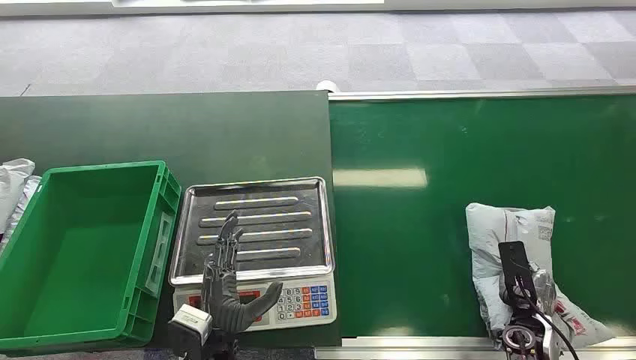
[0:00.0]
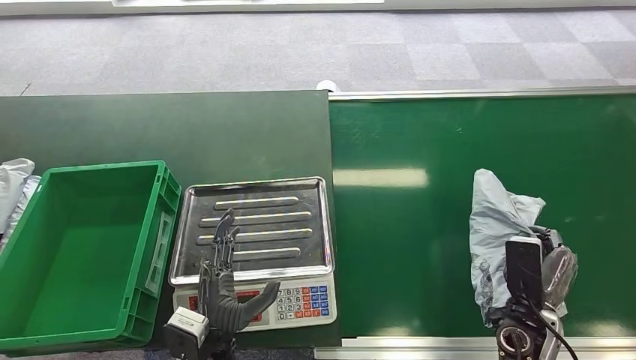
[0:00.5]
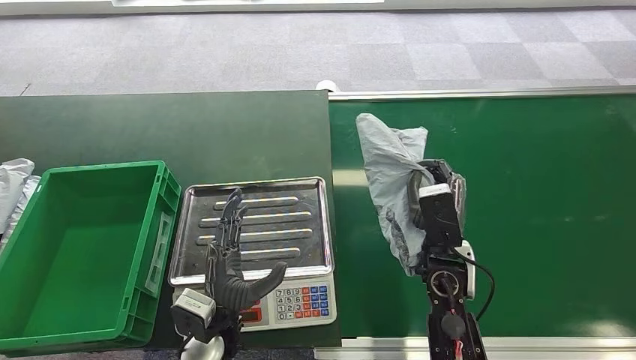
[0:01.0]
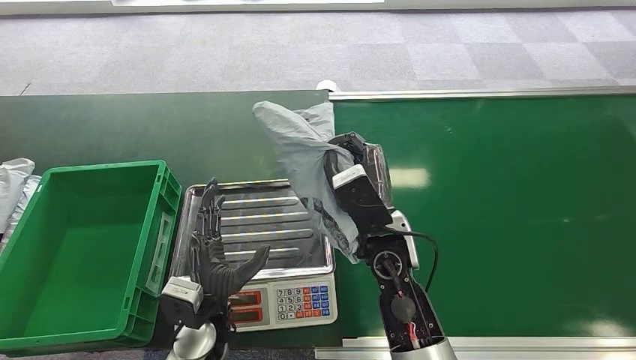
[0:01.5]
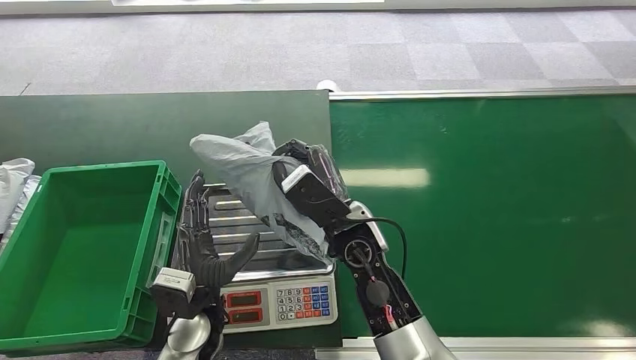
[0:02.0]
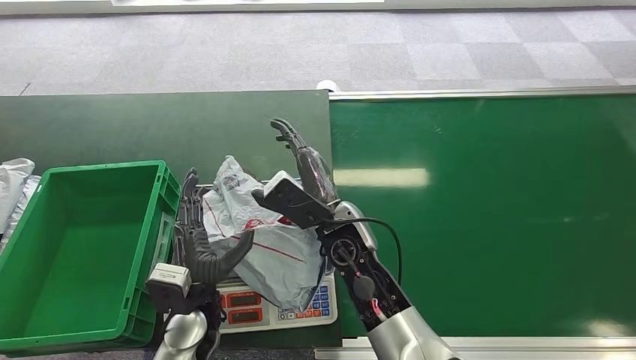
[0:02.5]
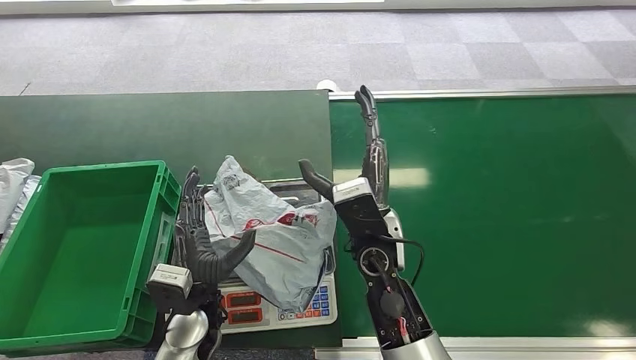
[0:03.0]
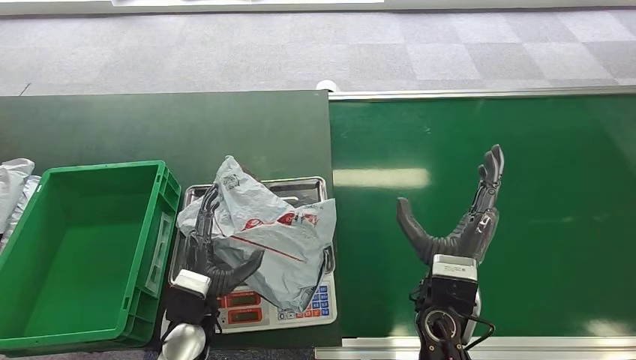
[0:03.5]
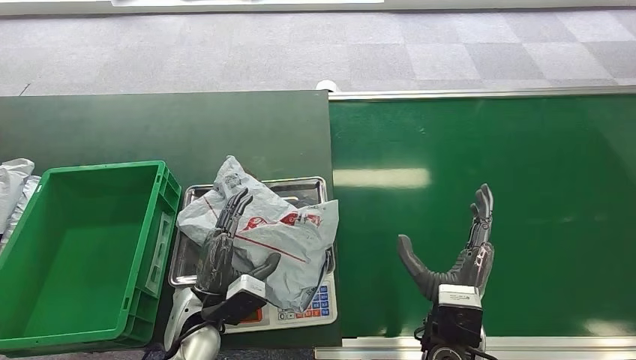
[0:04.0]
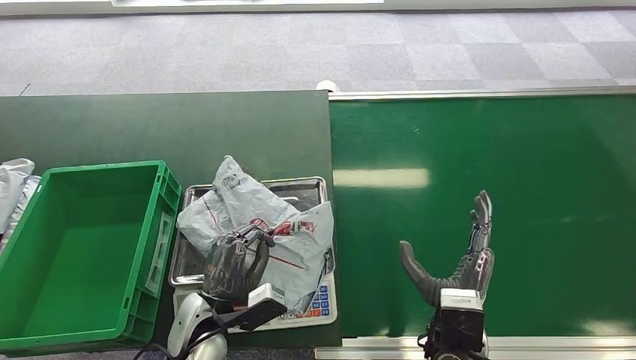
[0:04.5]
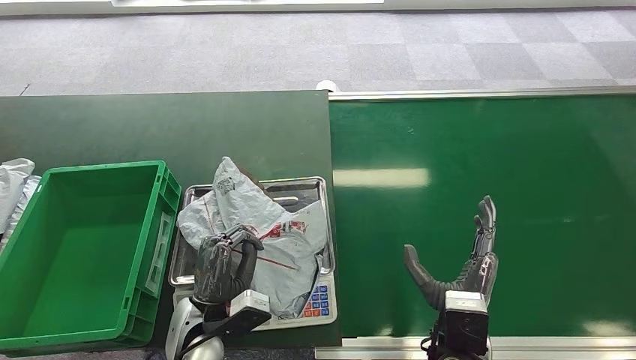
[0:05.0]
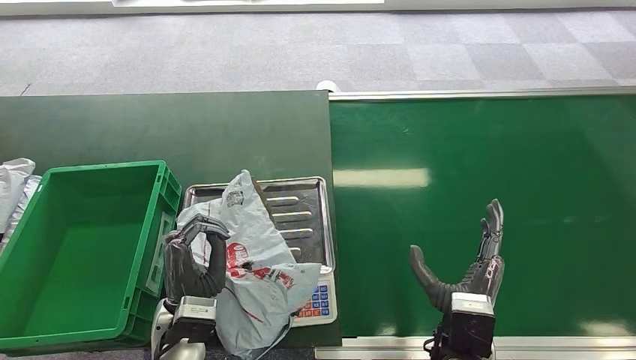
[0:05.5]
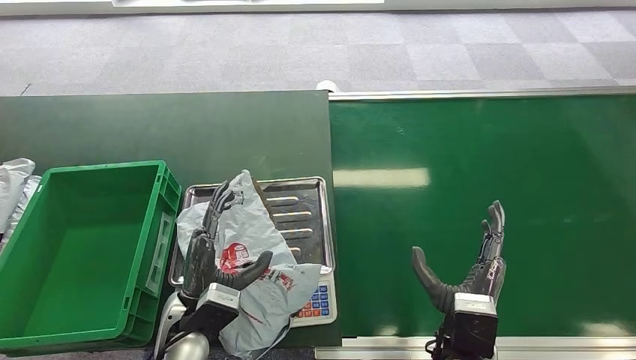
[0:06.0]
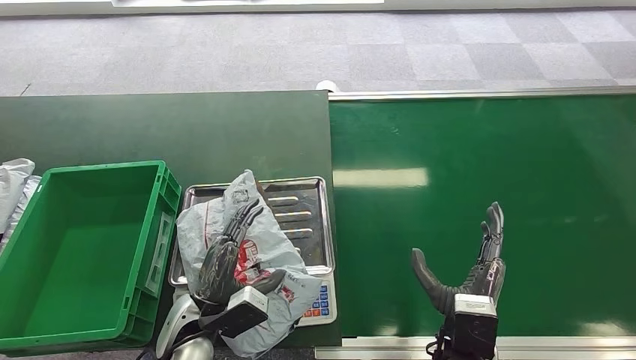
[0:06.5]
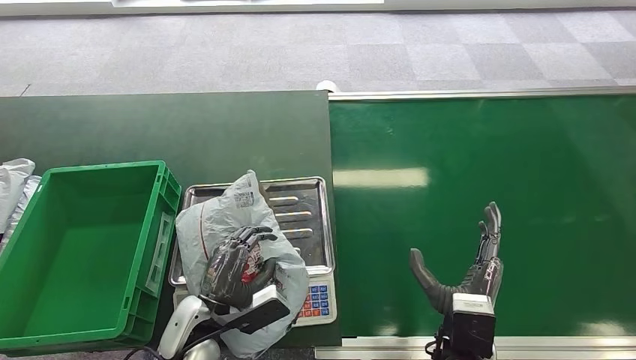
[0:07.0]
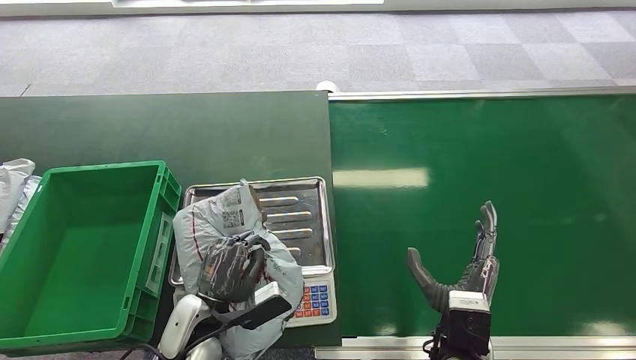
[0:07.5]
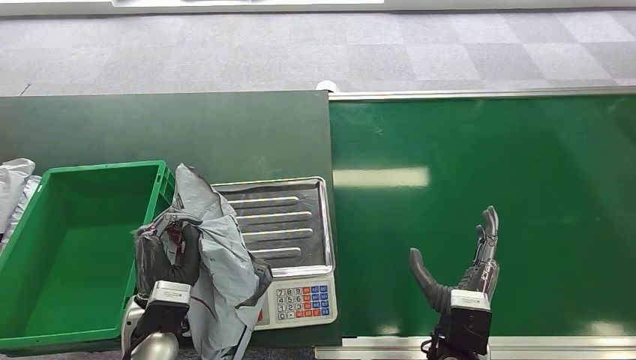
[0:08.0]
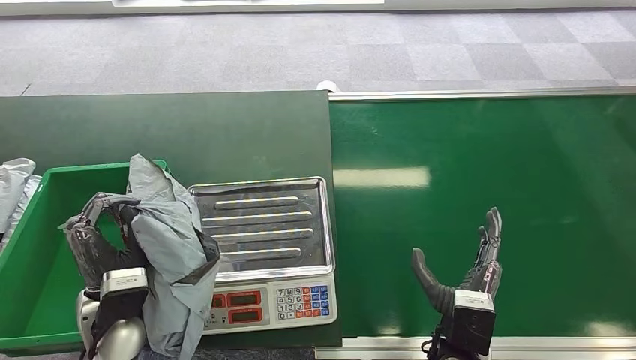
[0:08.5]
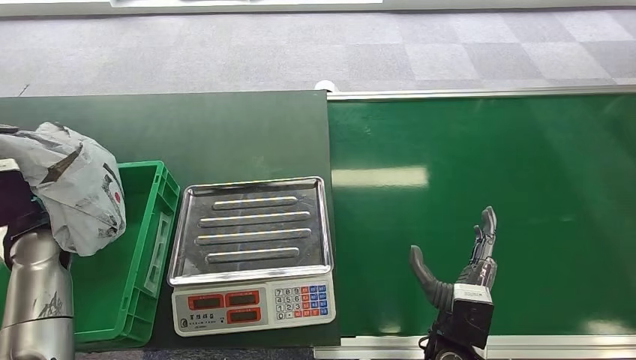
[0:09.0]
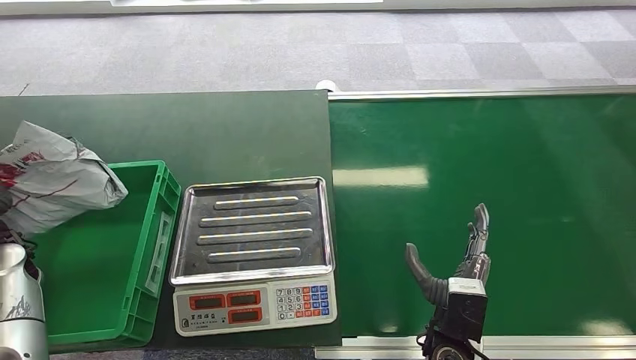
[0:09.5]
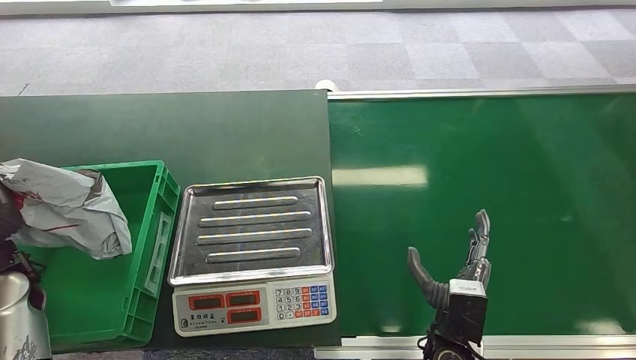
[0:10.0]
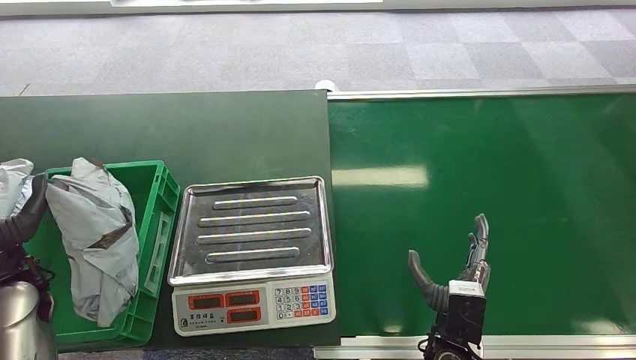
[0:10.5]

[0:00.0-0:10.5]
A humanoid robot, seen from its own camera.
Step, 0:00.0 to 0:00.5: Pick up the package from the conveyor belt.
Step, 0:02.0 to 0:03.0: Place the package onto the inbound machine.
Step, 0:08.0 to 0:08.5: Pick up the package from the inbound machine.
0:02.0 to 0:04.0: The right hand travels backward, to the right and downward by roughly 20 cm.
0:06.5 to 0:08.5: The left hand moves to the left and upward, approximately 10 cm.
0:08.5 to 0:10.5: The left hand travels to the left by some 15 cm.

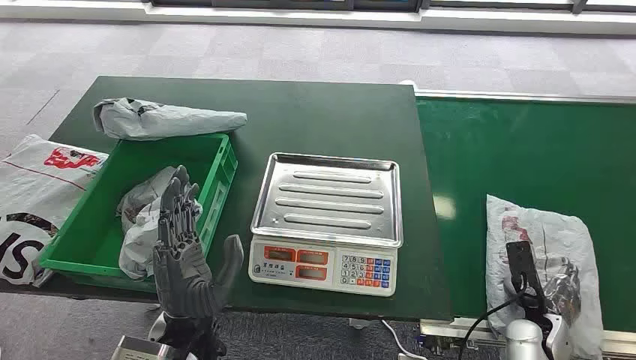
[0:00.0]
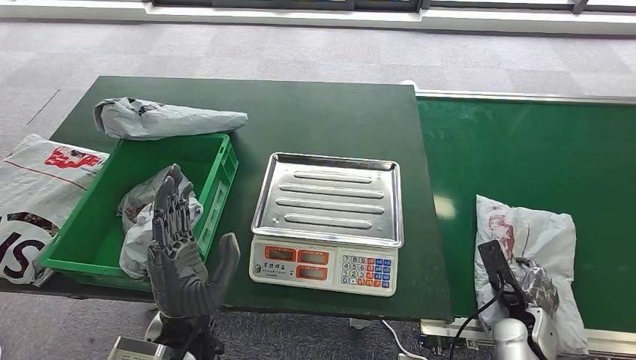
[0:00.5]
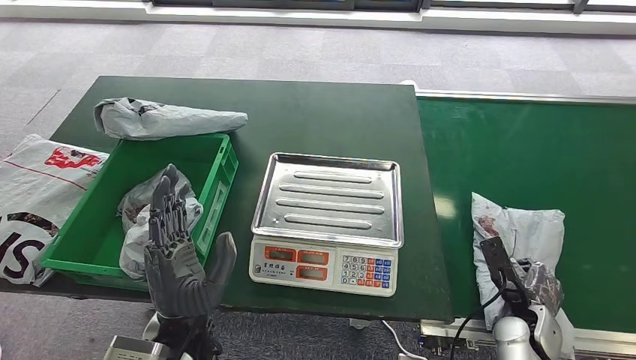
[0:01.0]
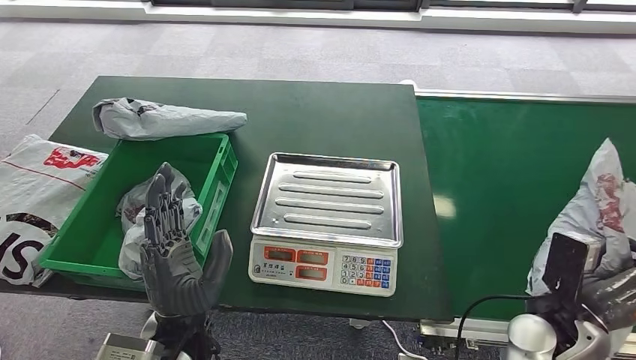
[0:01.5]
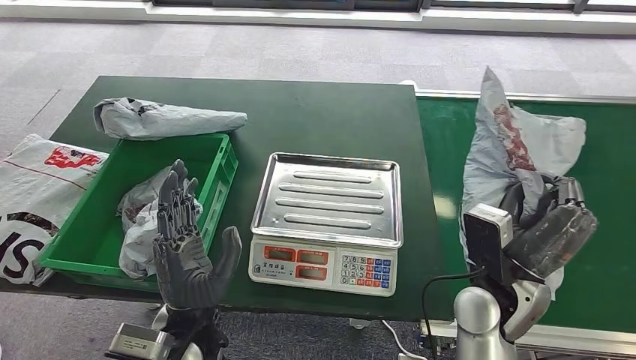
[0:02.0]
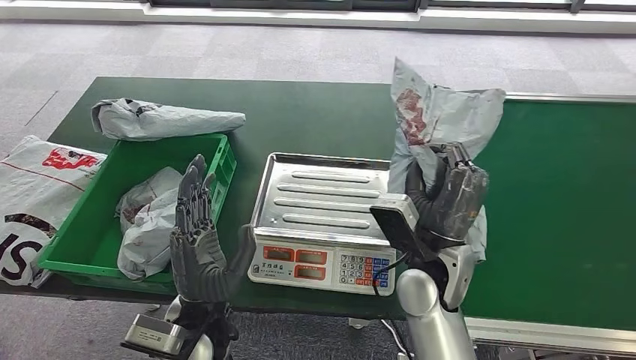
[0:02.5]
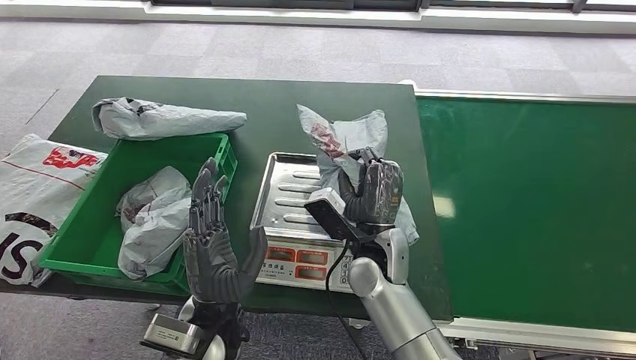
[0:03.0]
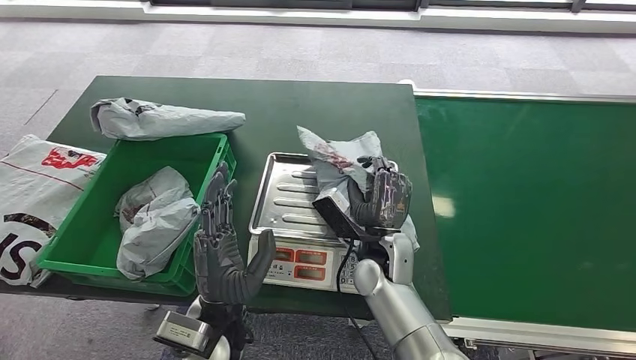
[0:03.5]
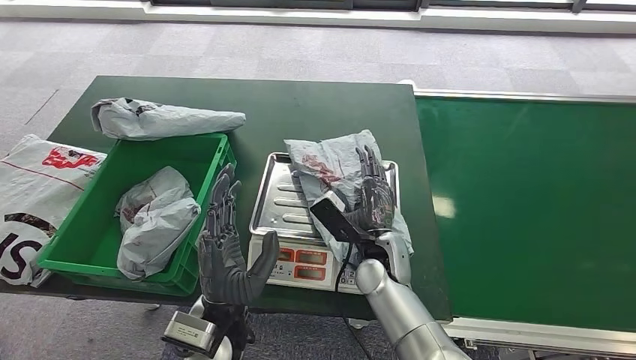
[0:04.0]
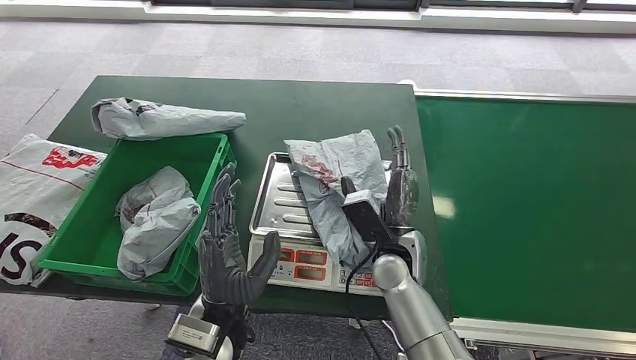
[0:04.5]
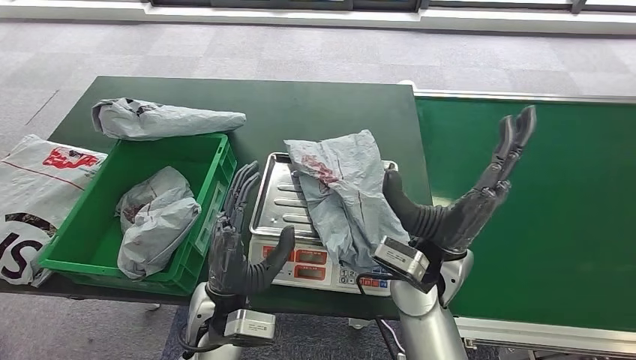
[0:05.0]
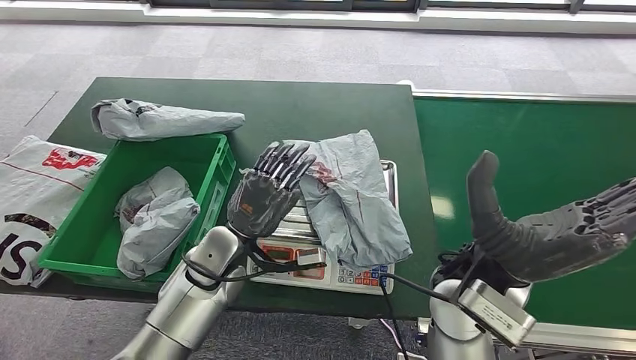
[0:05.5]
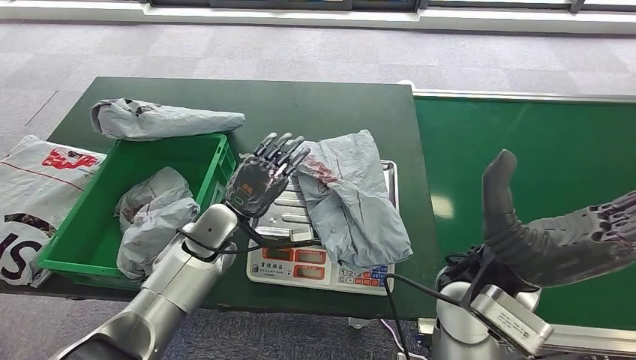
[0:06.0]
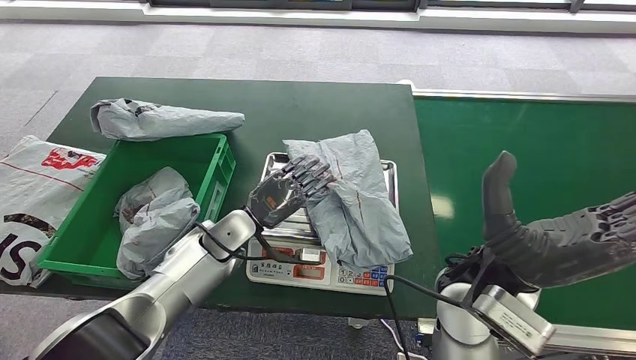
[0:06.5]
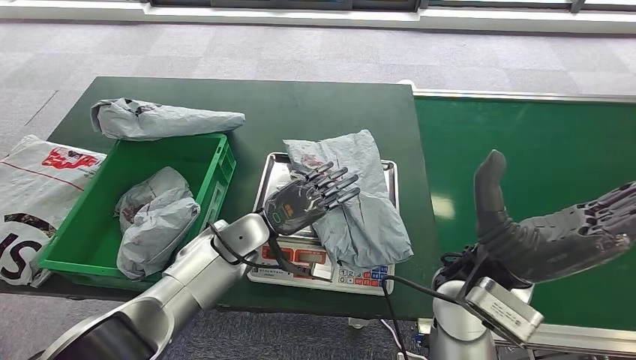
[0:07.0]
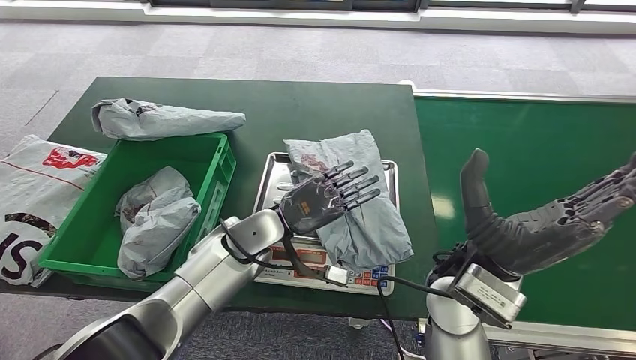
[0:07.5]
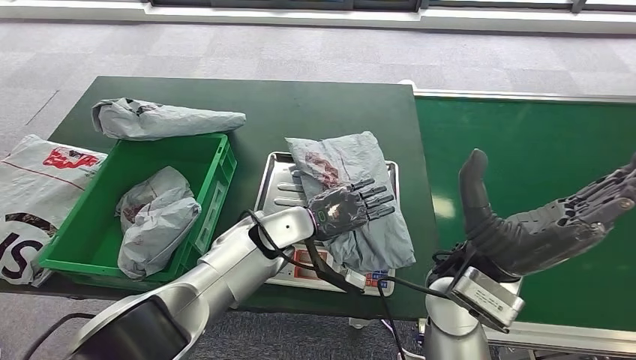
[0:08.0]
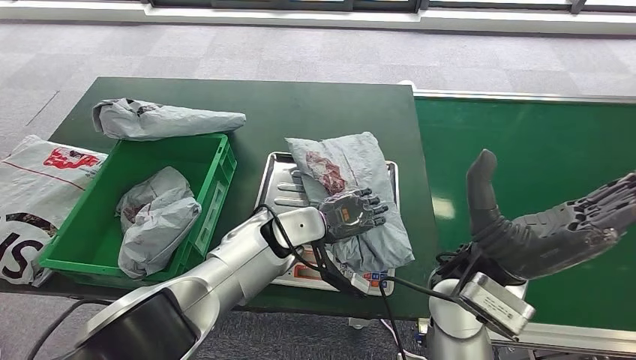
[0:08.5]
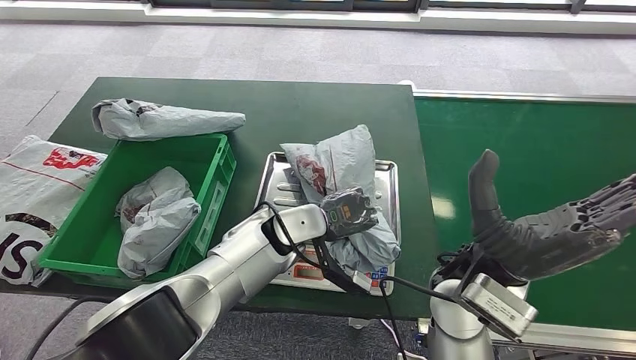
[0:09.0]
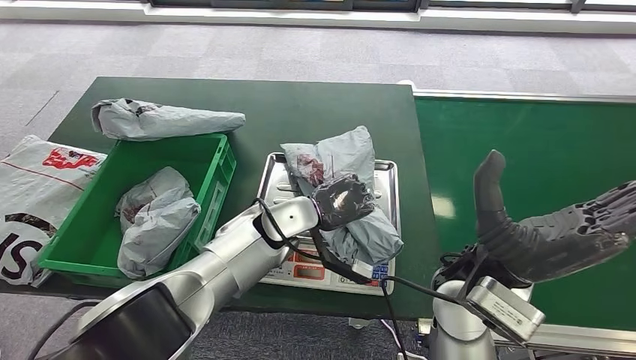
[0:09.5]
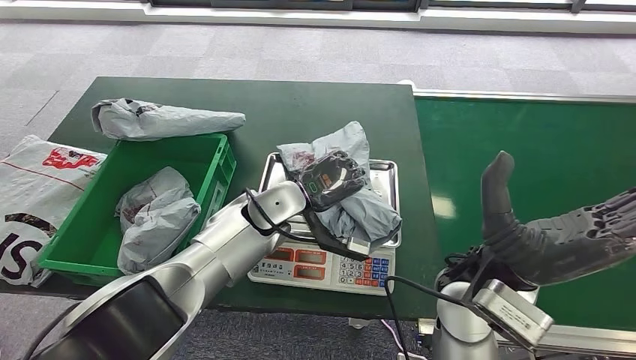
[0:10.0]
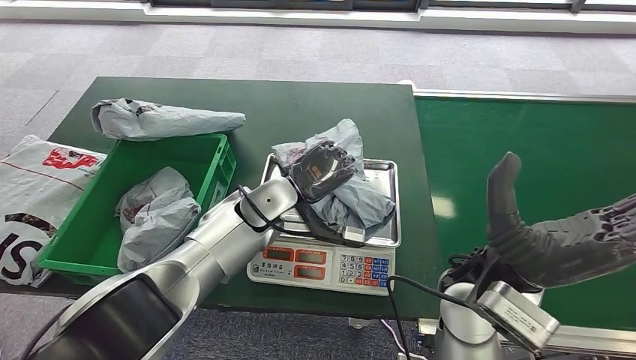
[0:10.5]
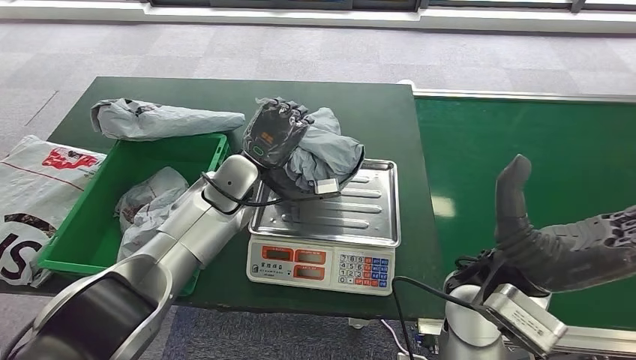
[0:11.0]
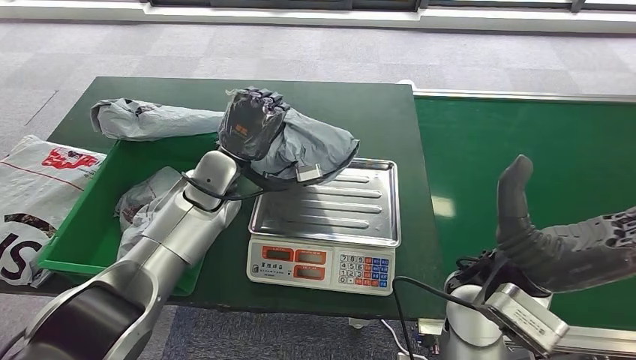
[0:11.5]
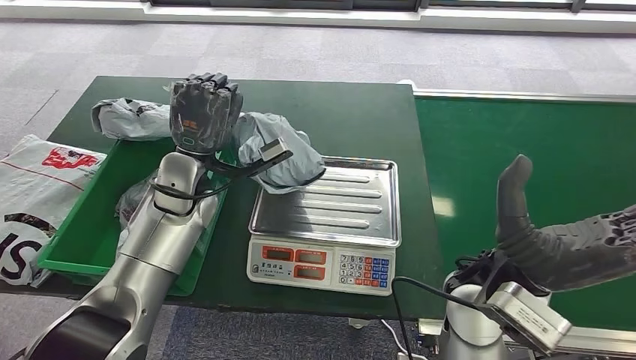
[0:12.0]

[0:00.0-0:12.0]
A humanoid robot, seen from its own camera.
Step, 0:00.0 to 0:02.0: Pick up the package from the conveyor belt.
Step, 0:02.5 to 0:04.5: Place the package onto the inbound machine.
0:06.0 to 0:08.0: The left hand travels to the right by about 10 cm.
0:08.0 to 0:10.0: There are only small adjustments of the hands.
